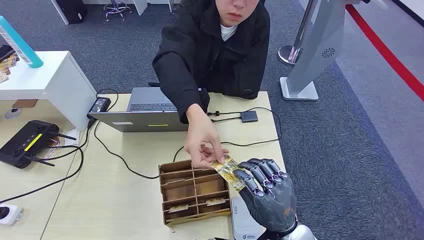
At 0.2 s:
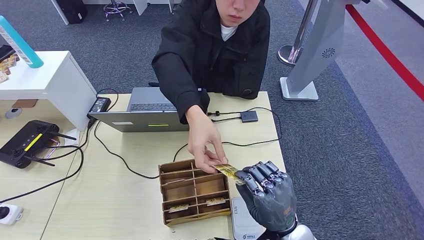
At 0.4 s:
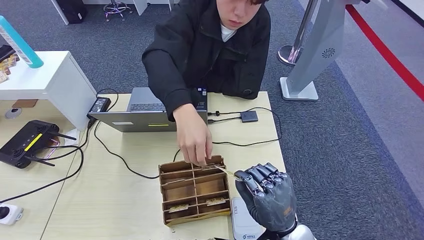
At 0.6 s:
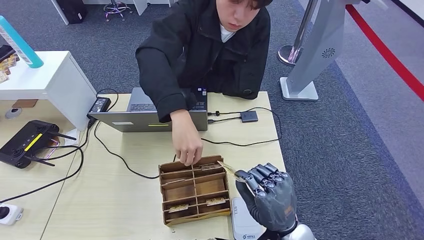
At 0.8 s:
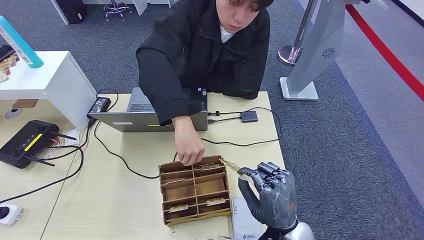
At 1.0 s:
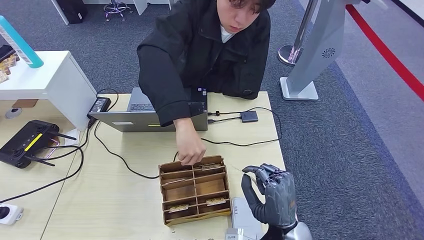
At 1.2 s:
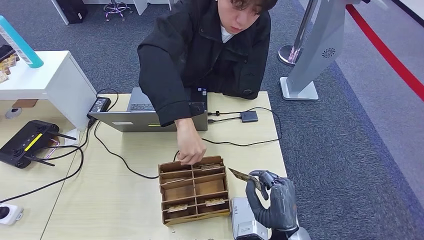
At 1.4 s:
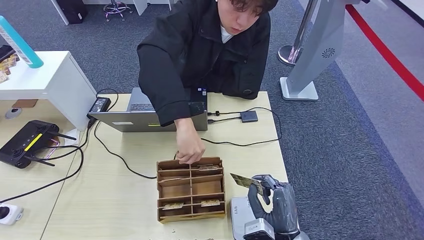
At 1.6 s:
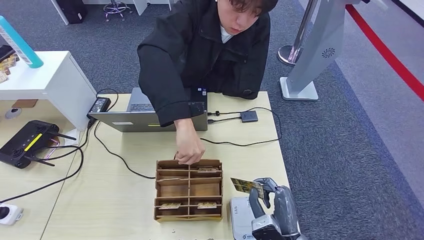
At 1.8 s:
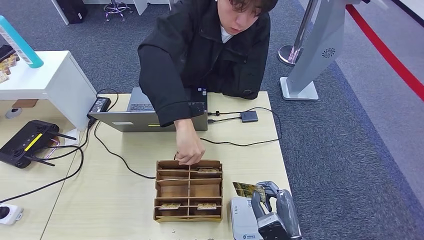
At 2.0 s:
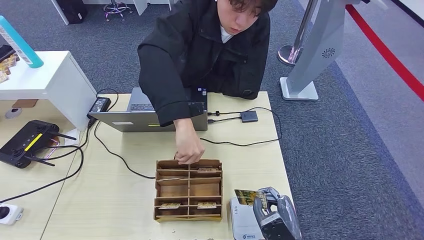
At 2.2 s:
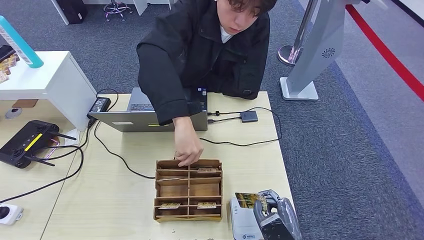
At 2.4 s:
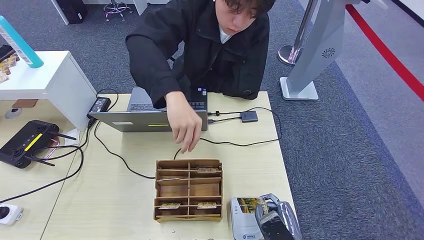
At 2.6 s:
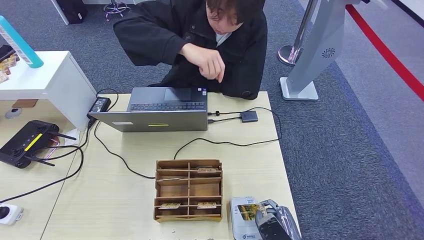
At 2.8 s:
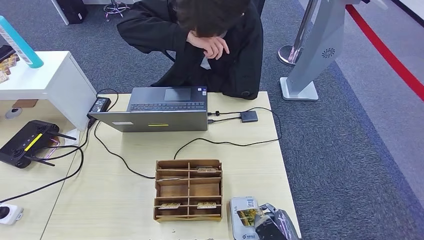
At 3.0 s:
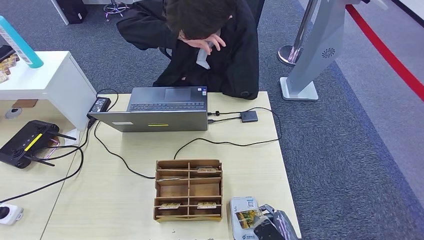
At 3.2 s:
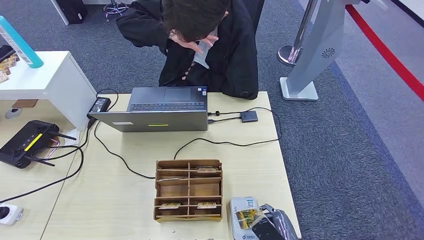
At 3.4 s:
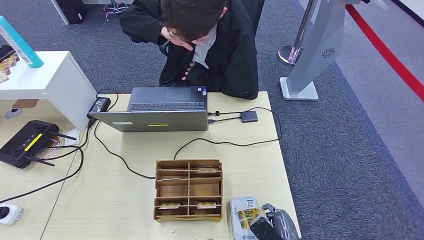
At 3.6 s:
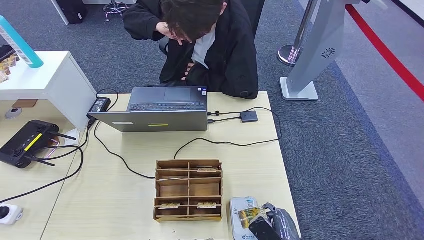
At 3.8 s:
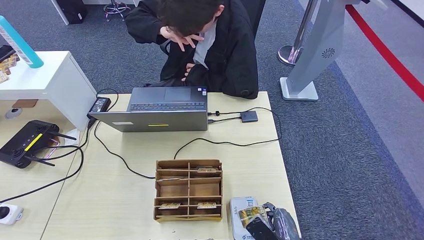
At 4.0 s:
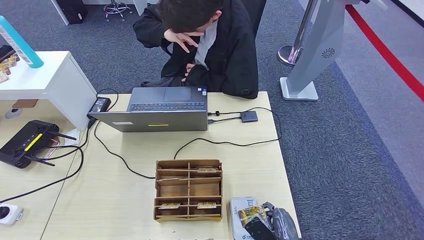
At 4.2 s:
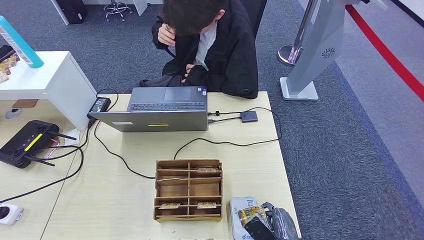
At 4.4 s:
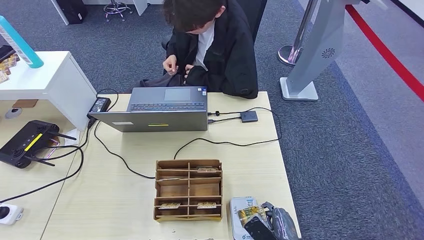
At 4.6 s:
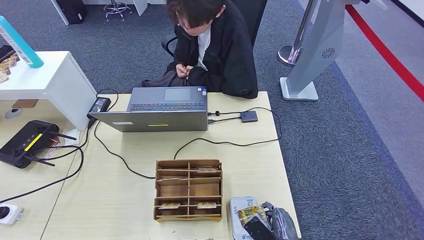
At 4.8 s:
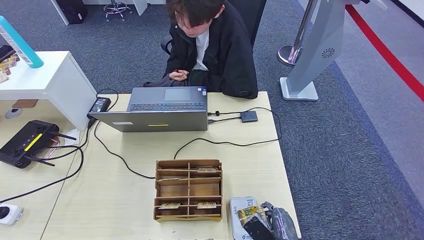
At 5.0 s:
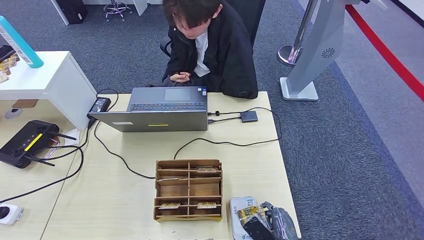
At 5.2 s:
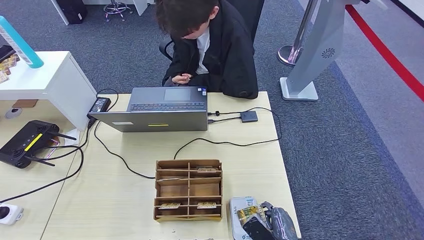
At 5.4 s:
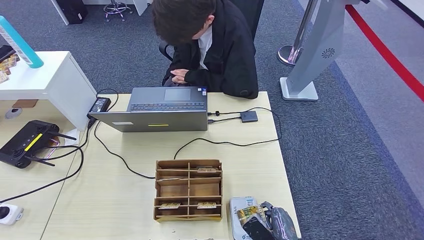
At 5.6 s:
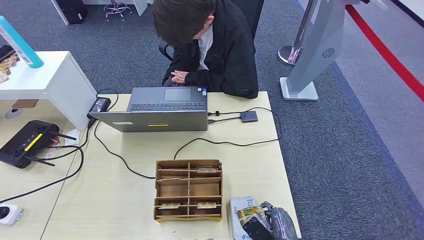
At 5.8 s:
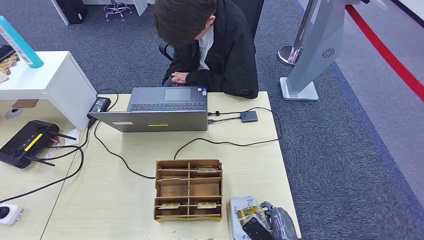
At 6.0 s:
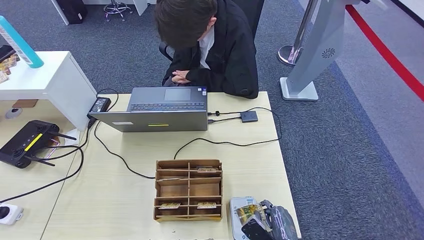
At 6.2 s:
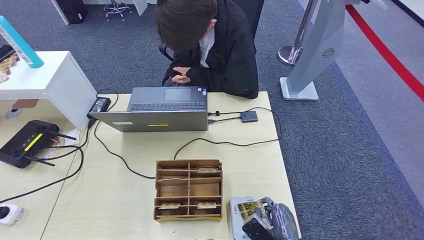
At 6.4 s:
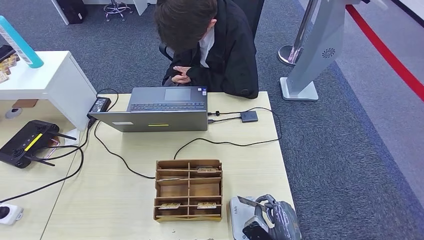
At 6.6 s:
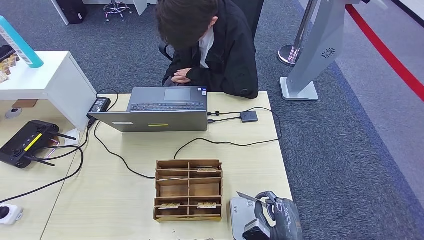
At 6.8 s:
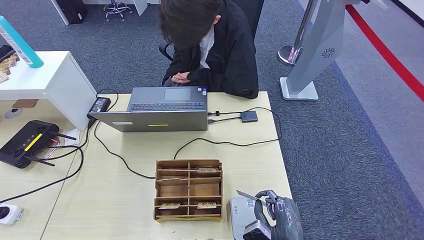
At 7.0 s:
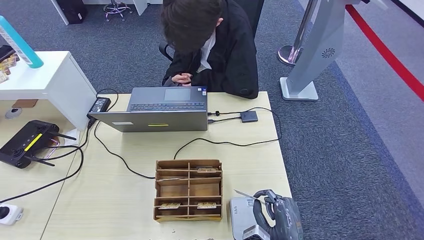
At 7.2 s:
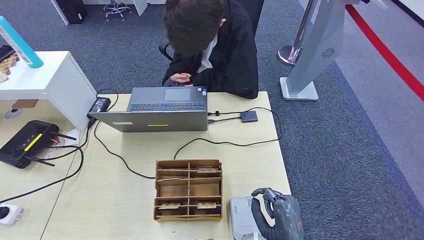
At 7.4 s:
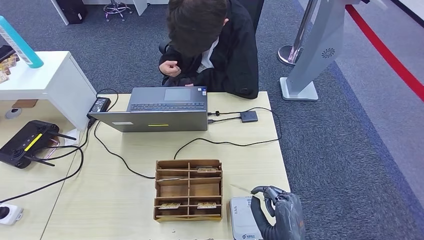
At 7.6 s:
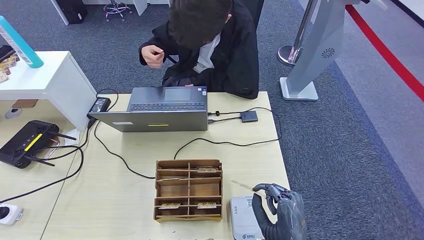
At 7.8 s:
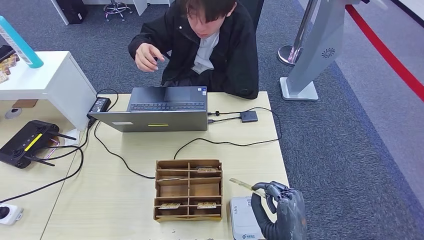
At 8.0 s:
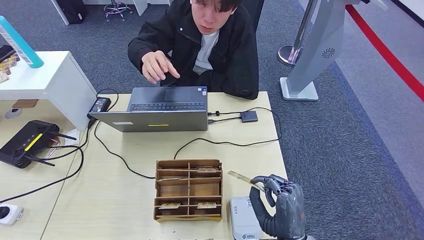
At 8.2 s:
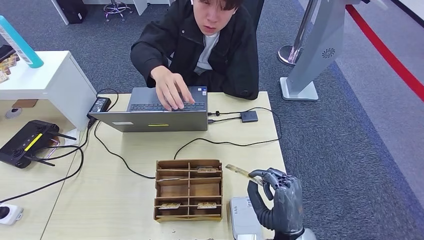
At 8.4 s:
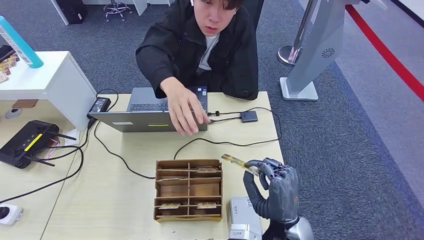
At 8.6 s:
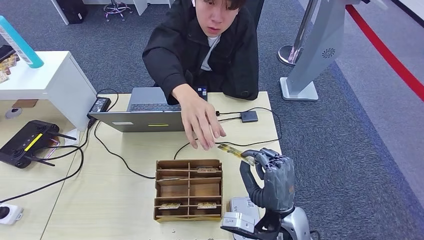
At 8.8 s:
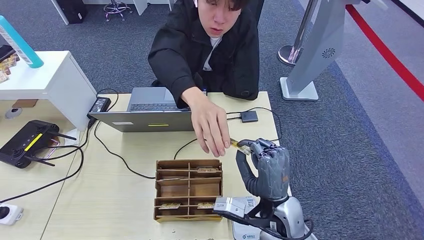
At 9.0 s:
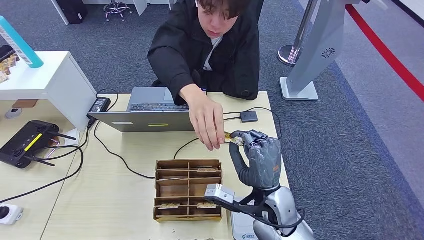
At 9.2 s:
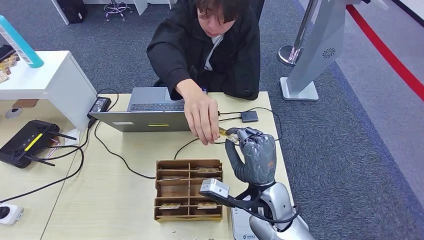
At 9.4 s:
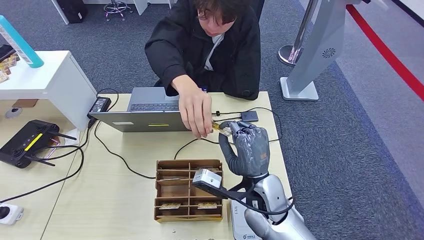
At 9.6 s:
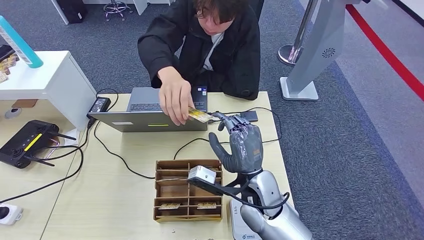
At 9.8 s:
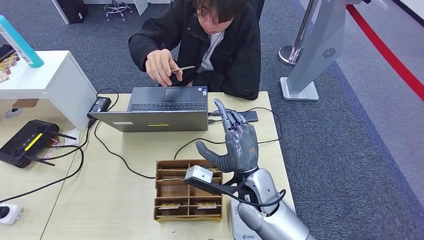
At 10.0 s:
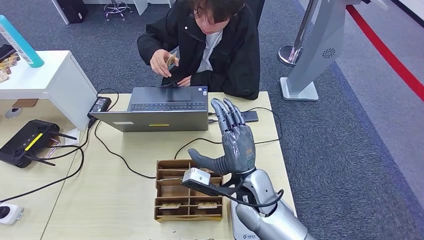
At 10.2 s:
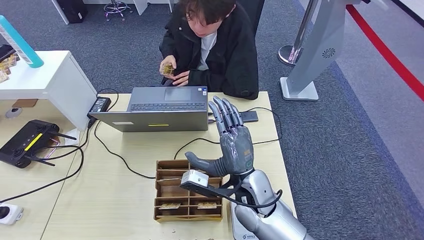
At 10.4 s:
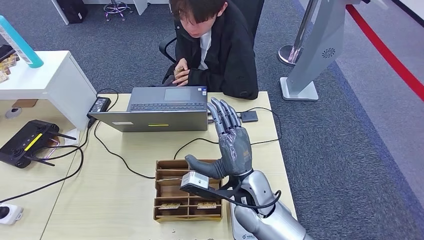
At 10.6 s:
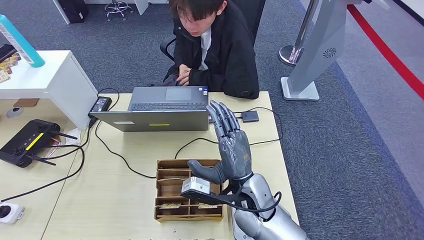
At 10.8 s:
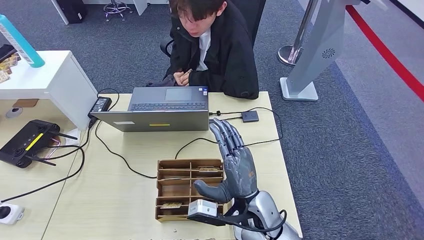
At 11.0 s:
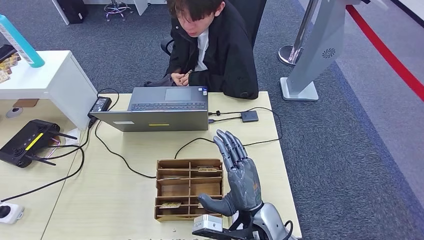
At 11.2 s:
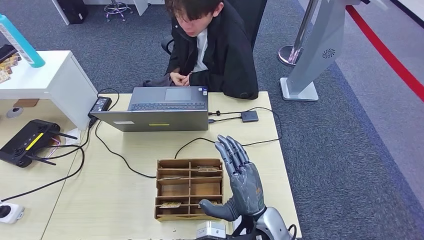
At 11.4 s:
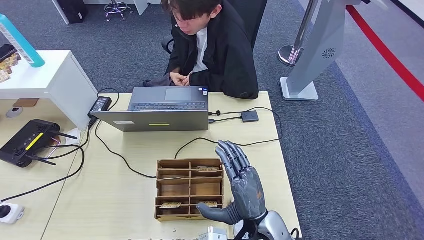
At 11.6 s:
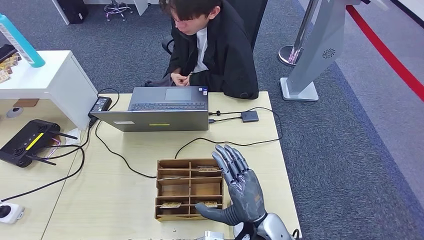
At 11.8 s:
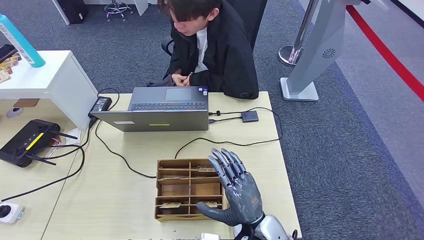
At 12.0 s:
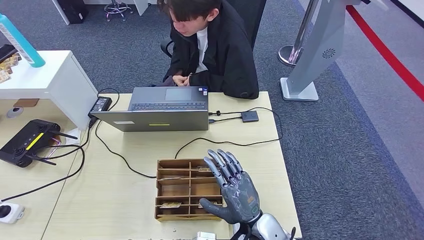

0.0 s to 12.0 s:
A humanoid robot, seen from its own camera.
Step, 0.0 to 1.8 s: Take the ID card from the person's hand.
Step, 2.0 to 5.2 s: Place the ID card on the card reader.
Step, 5.6 to 11.4 s: Hand the ID card to the person.
1.6 to 3.0 s: The right hand moves downward, roughly 5 cm.
3.0 to 4.4 s: There are only small adjustments of the hands.
4.4 to 6.0 s: The two hands keep their place.
6.0 to 7.6 s: The right hand shifts approximately 10 cm upward.
7.6 to 9.0 s: The right hand goes approximately 15 cm forward and upward.
9.0 to 10.4 s: The right hand ends up about 5 cm from where it was. The left hand goes some 15 cm to the left and backward.
10.4 to 12.0 s: The right hand shifts some 10 cm backward and downward. The left hand travels to the right and forward by roughly 15 cm.

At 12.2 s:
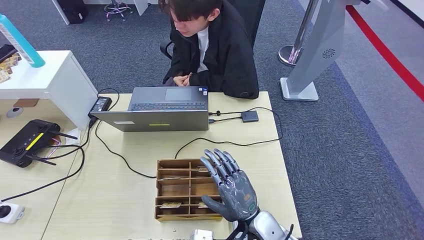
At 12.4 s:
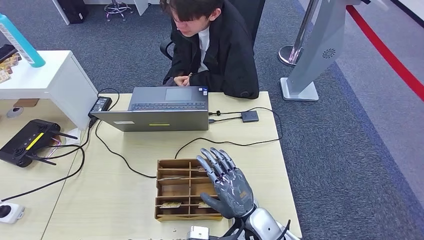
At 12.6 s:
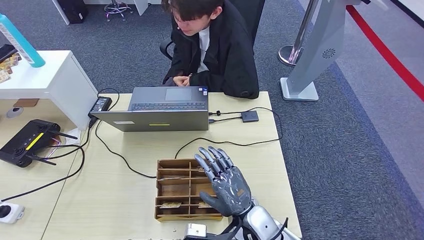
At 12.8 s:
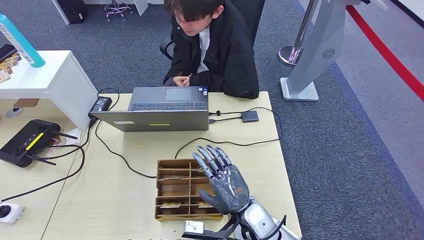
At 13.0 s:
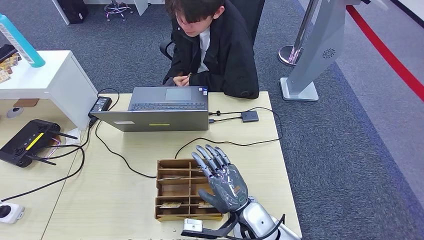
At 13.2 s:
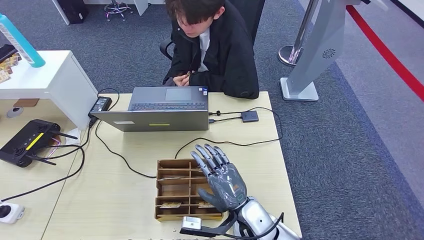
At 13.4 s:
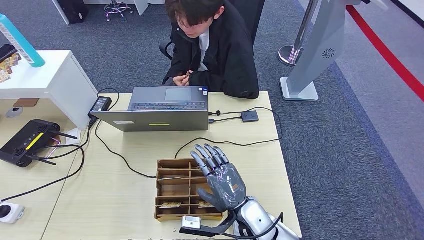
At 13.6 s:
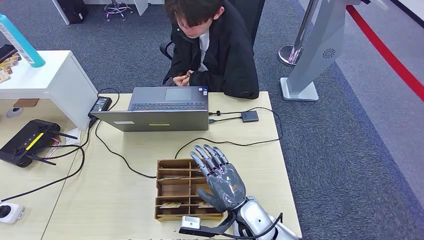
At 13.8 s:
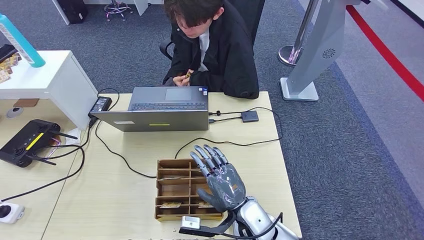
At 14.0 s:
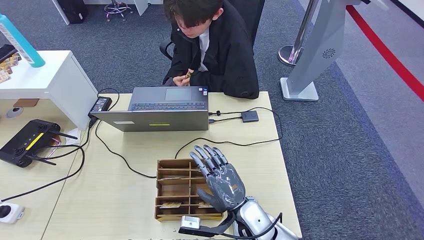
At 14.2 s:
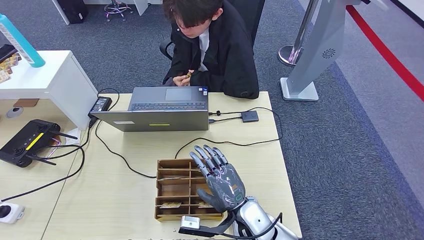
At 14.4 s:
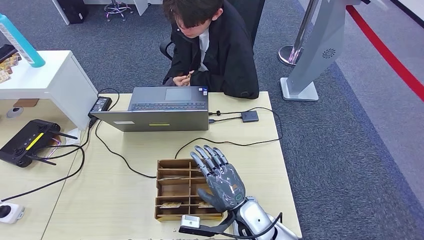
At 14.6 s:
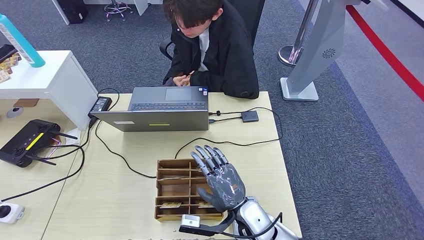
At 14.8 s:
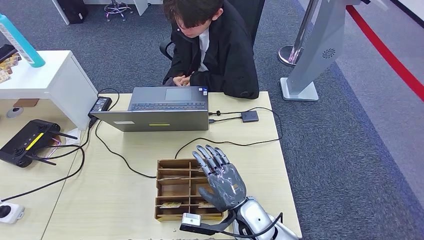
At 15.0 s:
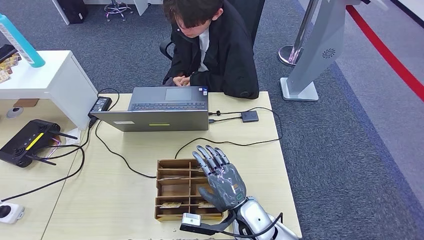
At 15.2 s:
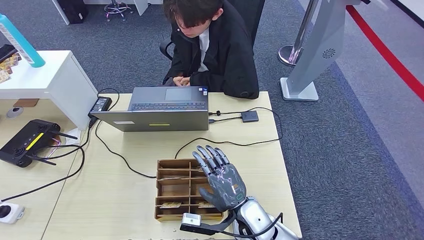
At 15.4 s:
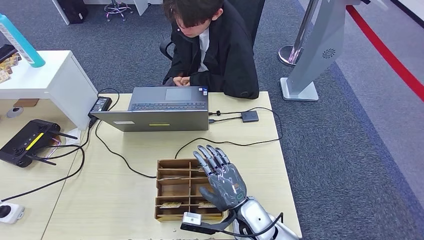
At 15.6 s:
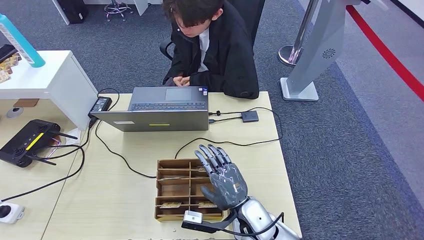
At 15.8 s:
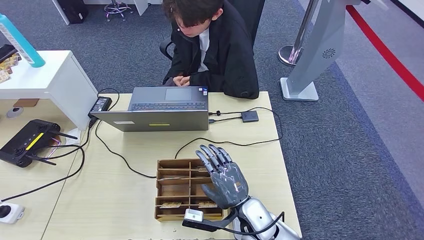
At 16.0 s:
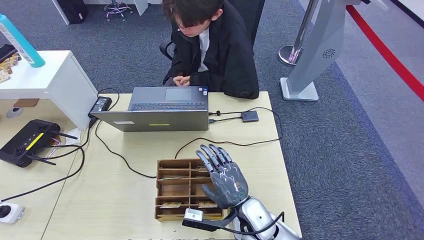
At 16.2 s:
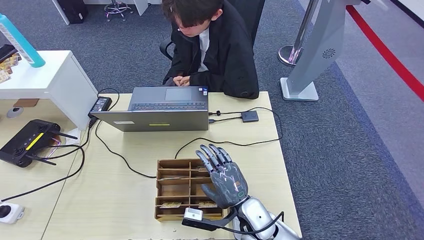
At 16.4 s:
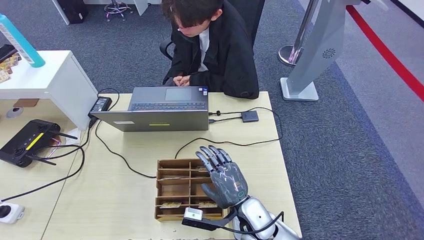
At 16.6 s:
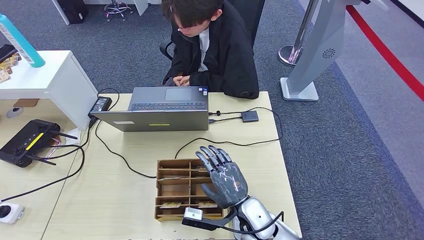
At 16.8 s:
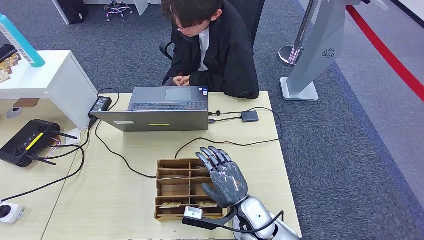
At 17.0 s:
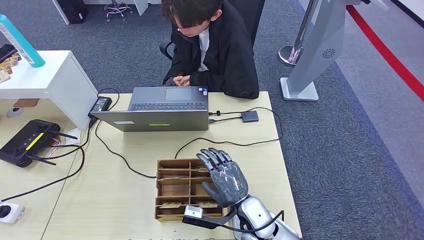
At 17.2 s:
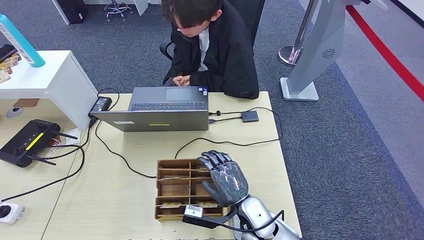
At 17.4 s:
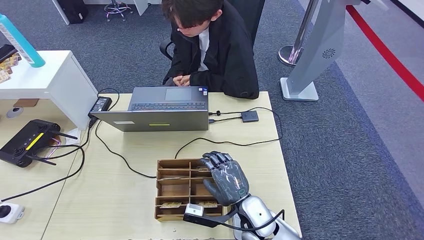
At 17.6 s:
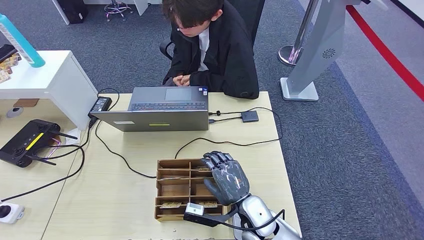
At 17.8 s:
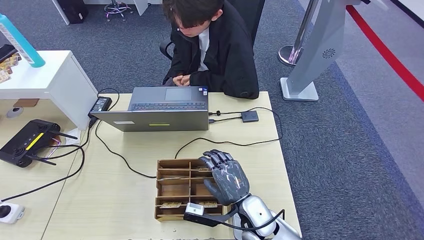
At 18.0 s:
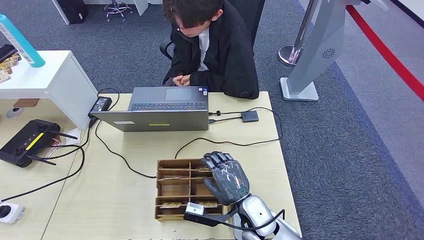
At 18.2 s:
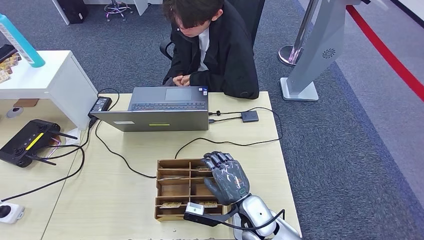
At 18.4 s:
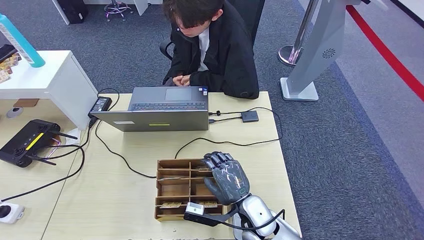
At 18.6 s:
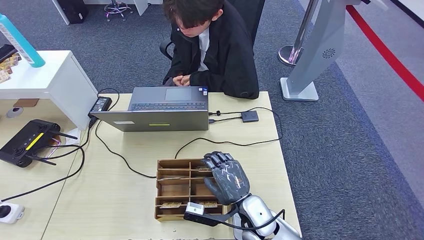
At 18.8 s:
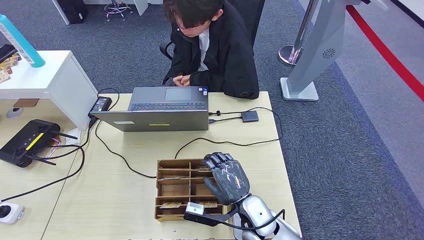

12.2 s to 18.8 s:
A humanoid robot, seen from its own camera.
Step, 12.2 to 18.0 s: Pick up the room key from the key card box.
12.2 to 13.8 s: The hands move only a little.
13.8 to 15.4 s: The two hands keep their place.
15.4 to 18.8 s: Both hands stay about where they are.
